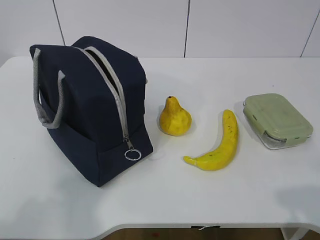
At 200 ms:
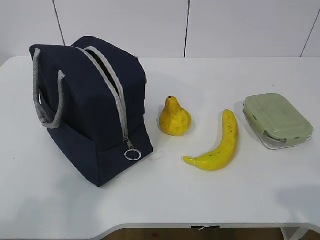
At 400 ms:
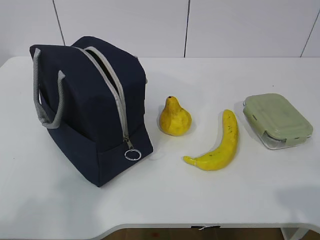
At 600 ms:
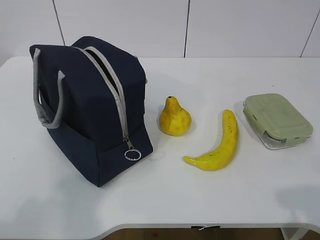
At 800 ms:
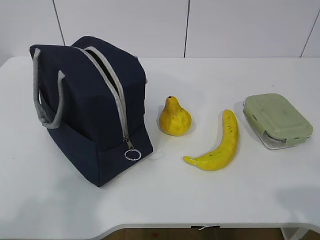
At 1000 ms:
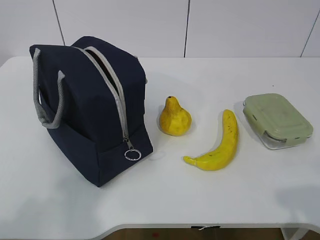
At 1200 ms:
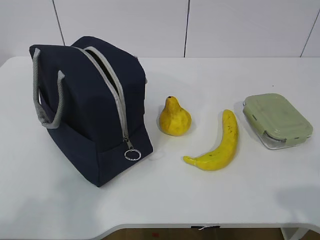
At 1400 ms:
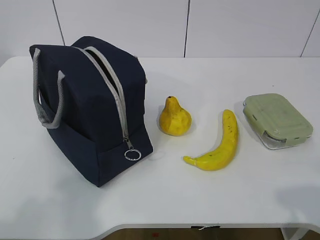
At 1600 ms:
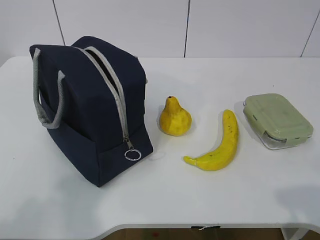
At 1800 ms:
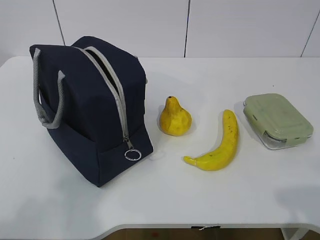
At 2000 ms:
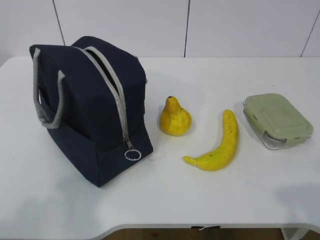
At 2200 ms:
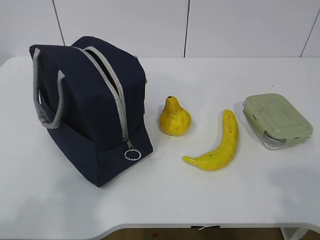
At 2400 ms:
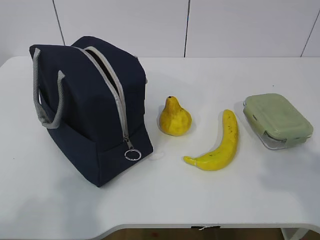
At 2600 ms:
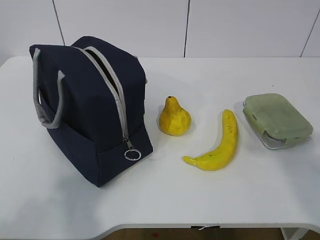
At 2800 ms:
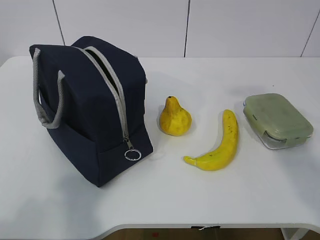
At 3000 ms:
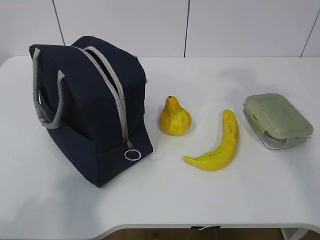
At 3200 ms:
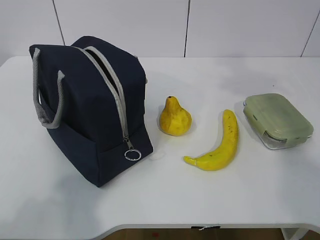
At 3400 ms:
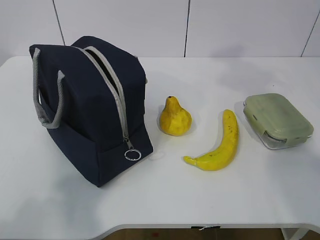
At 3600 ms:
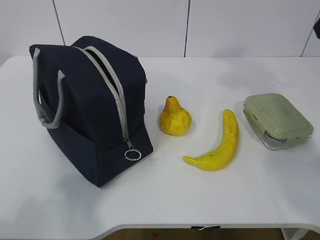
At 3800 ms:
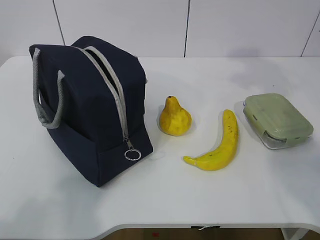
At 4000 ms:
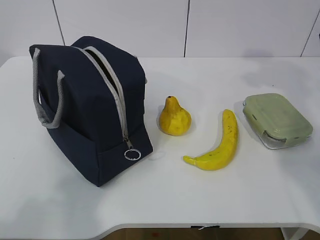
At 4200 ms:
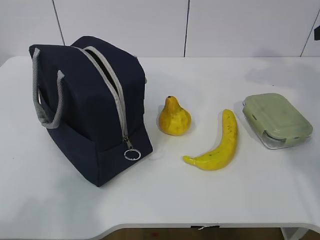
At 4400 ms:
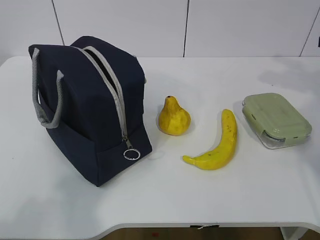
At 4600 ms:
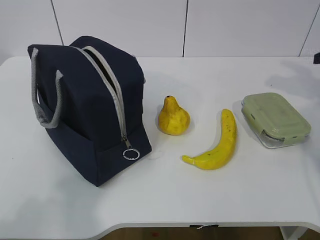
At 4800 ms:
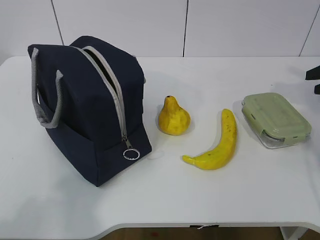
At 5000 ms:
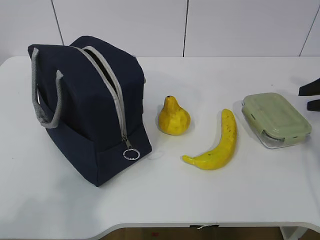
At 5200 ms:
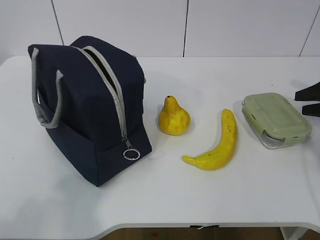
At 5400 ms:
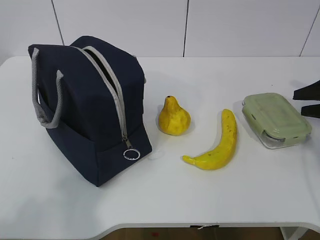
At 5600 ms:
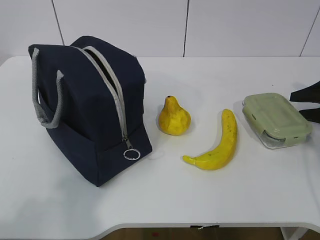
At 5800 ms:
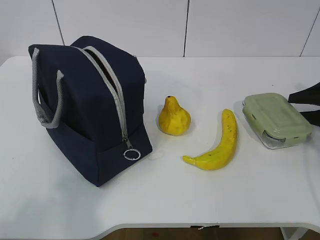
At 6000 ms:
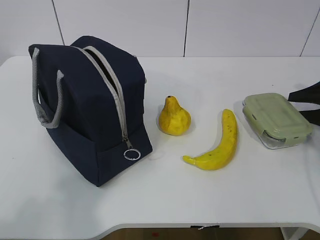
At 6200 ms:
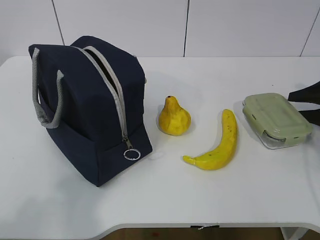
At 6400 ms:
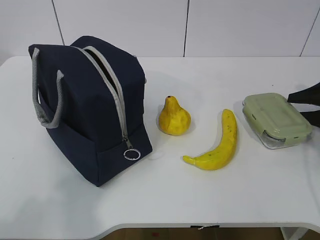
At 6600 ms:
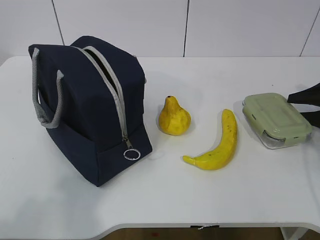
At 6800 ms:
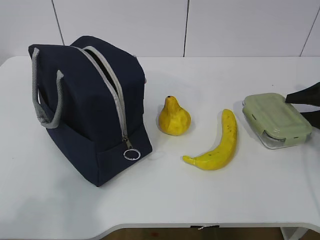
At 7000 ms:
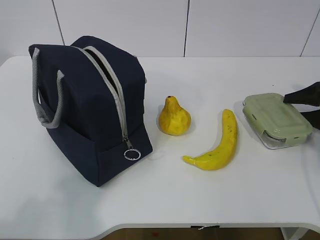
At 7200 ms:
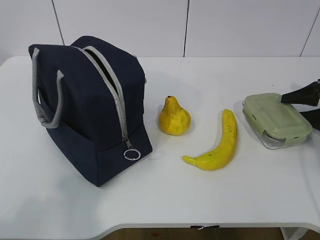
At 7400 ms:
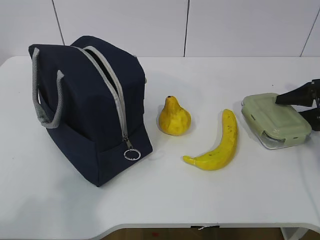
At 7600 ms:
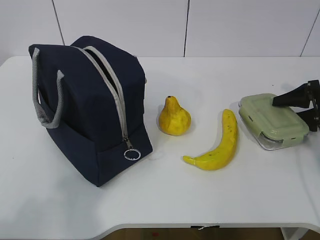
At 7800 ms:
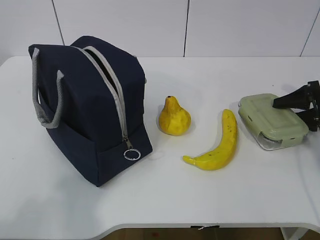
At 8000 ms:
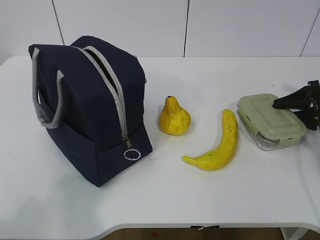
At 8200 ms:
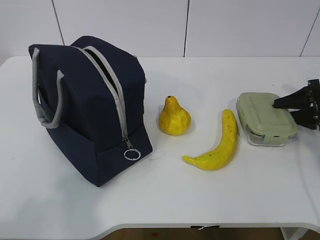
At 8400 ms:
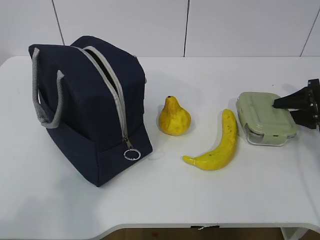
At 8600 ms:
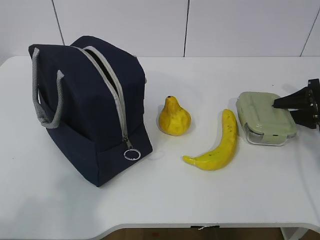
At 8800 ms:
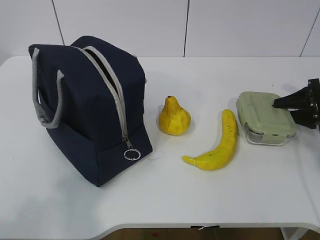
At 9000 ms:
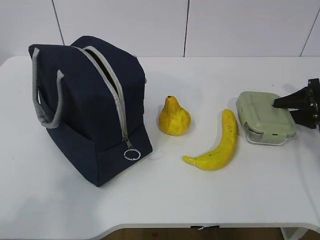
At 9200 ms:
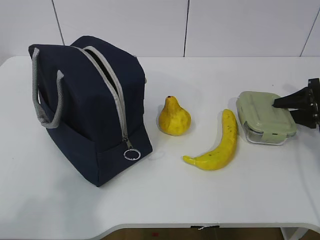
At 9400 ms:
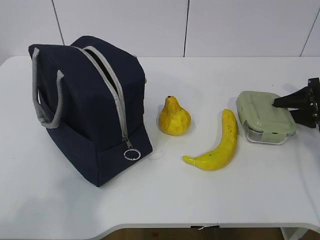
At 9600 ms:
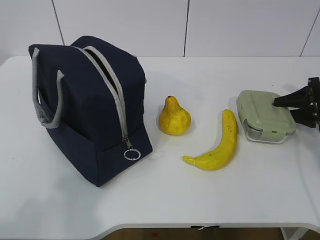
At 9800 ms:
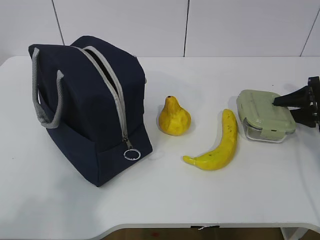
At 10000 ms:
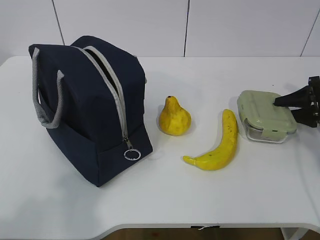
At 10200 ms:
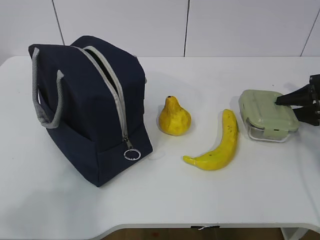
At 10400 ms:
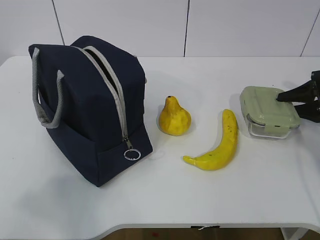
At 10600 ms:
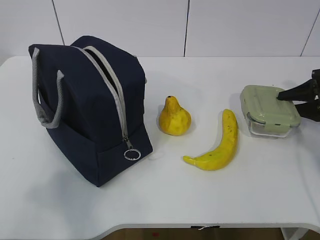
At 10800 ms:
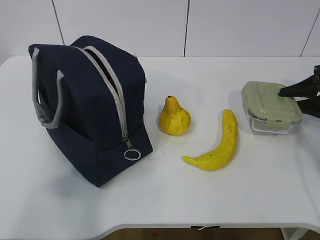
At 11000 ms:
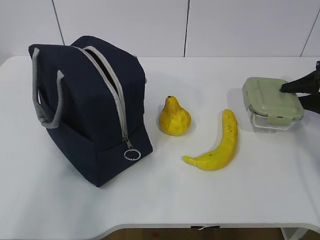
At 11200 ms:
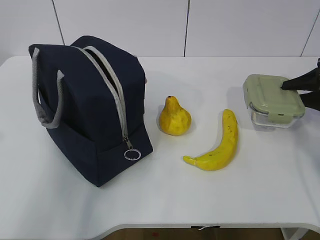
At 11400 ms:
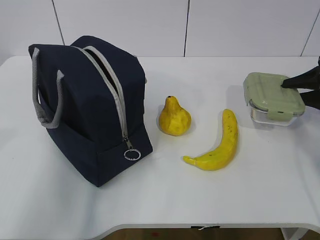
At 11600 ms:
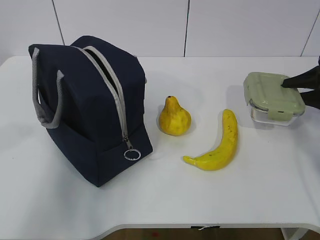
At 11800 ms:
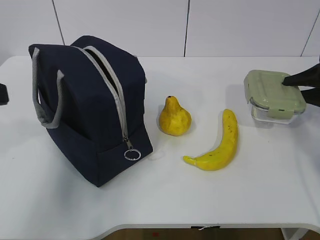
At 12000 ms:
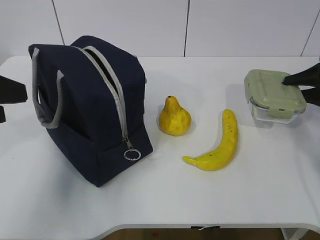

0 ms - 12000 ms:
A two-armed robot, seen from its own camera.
Step, 0 ms - 8000 ms: Grab the lunch box with your right hand.
1600 ms - 3000 ms: The right gripper travels forward and upward by some 25 cm.
3000 ms - 4400 ms: The right gripper moves forward, to the right and downward, approximately 25 cm.
4400 ms - 6000 ms: The right gripper travels downward by roughly 15 cm.
6000 ms - 7600 ms: The grippers move only a little.
7600 ms - 9000 ms: The right gripper closes its fingers.
9000 ms - 10400 ms: The grippers stay close to where they were, moving slightly.
10400 ms - 12000 ms: The left gripper shifts roughly 15 cm forward, and opens up.

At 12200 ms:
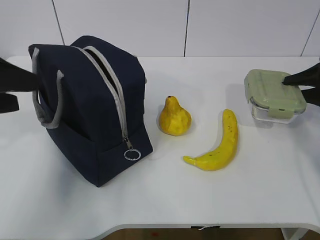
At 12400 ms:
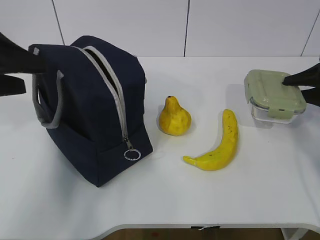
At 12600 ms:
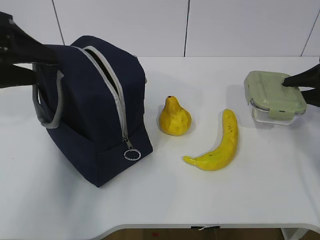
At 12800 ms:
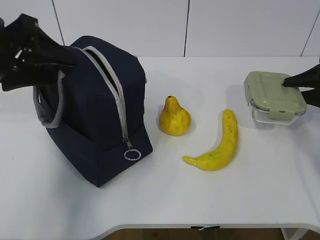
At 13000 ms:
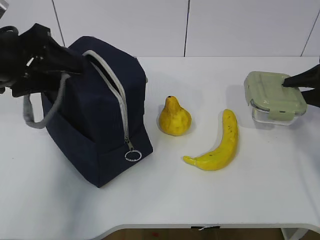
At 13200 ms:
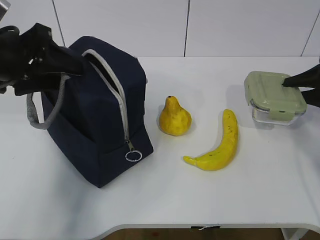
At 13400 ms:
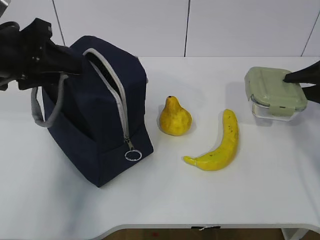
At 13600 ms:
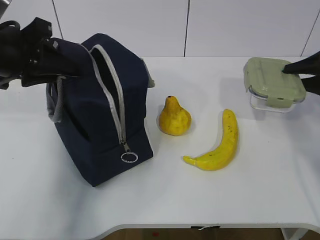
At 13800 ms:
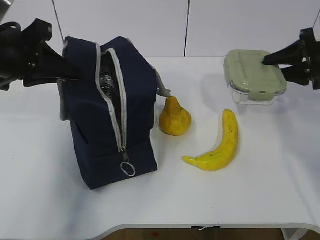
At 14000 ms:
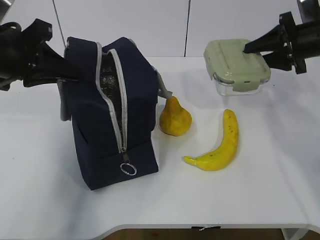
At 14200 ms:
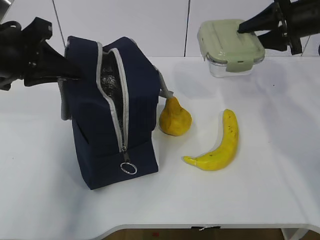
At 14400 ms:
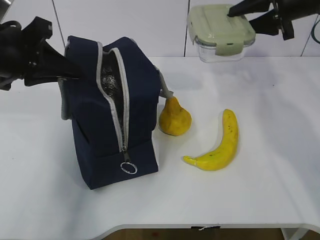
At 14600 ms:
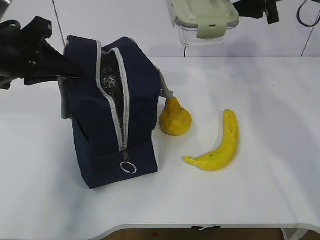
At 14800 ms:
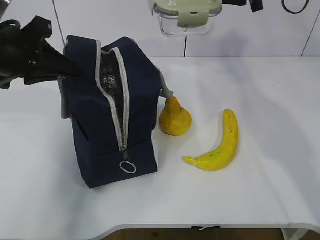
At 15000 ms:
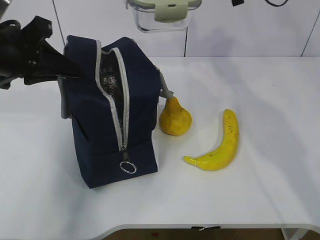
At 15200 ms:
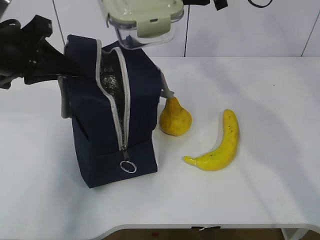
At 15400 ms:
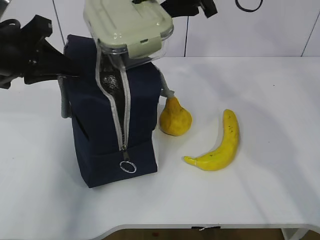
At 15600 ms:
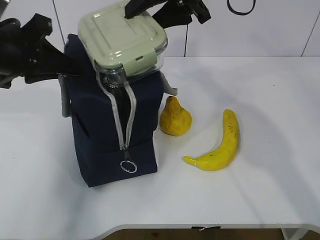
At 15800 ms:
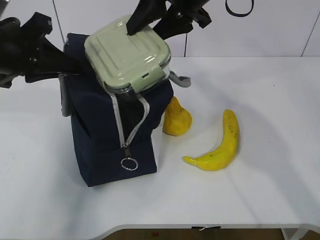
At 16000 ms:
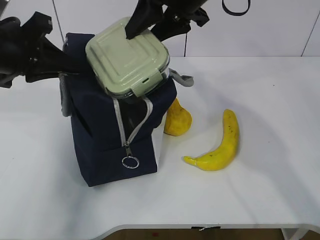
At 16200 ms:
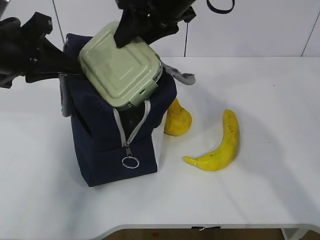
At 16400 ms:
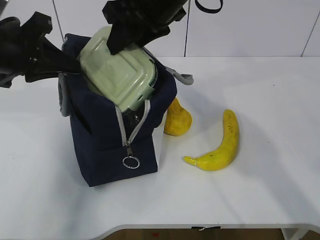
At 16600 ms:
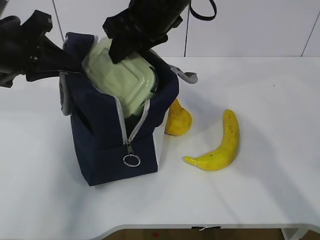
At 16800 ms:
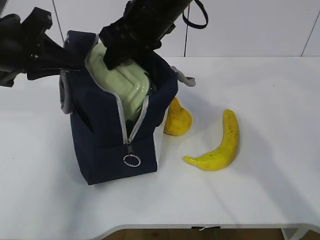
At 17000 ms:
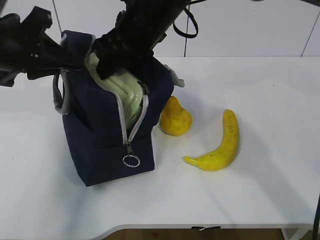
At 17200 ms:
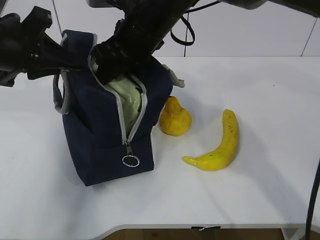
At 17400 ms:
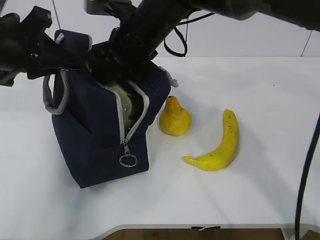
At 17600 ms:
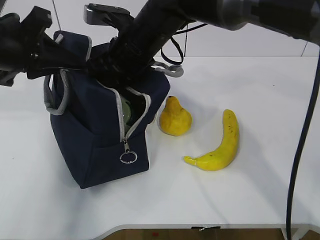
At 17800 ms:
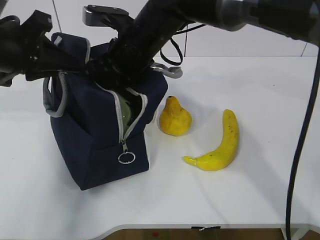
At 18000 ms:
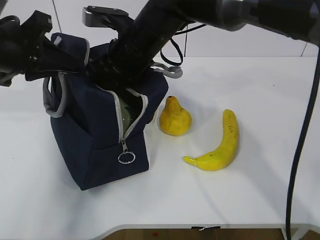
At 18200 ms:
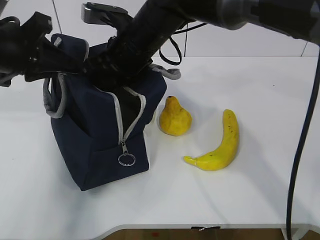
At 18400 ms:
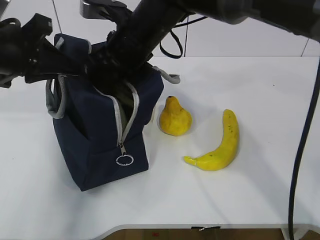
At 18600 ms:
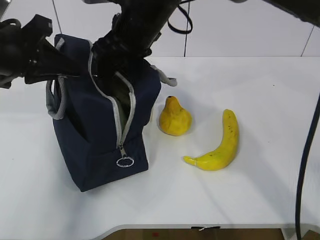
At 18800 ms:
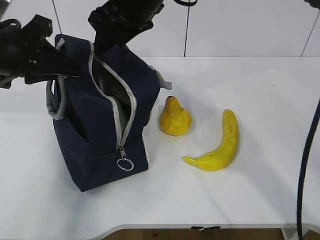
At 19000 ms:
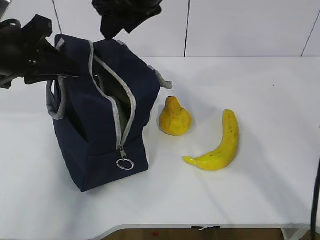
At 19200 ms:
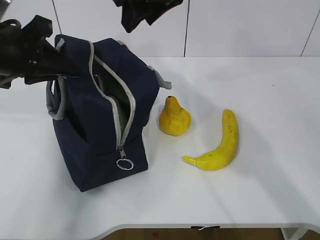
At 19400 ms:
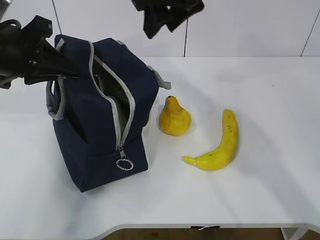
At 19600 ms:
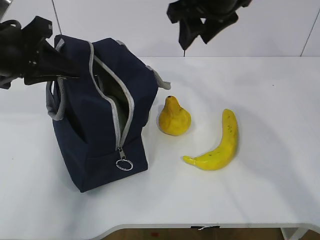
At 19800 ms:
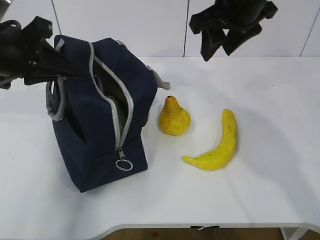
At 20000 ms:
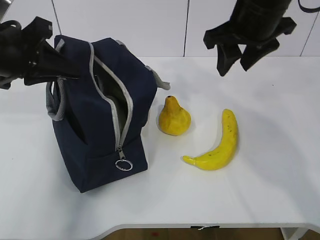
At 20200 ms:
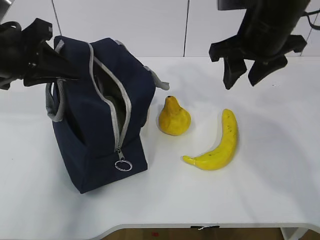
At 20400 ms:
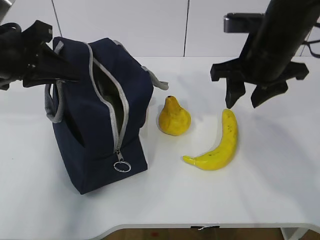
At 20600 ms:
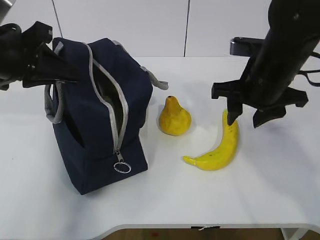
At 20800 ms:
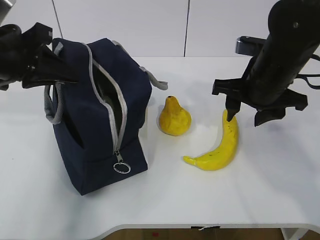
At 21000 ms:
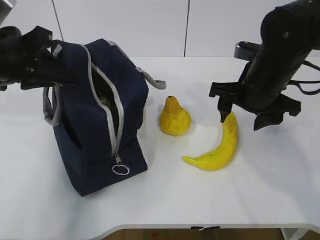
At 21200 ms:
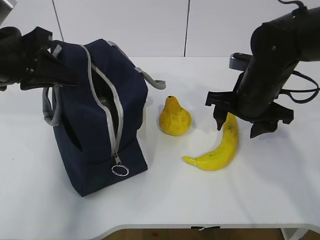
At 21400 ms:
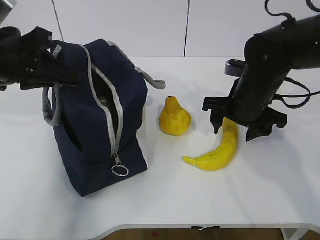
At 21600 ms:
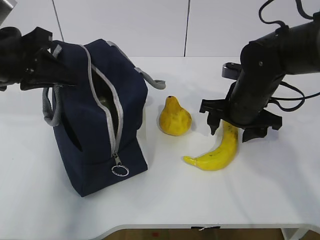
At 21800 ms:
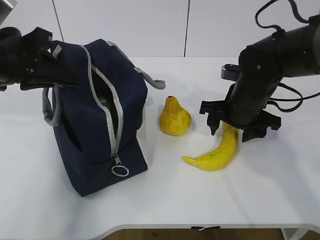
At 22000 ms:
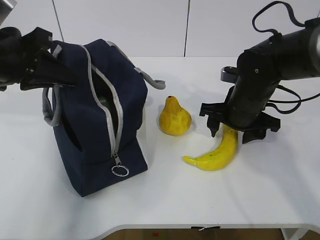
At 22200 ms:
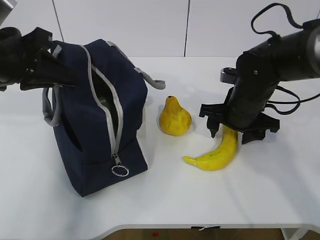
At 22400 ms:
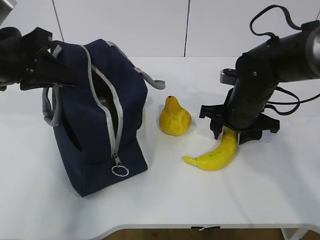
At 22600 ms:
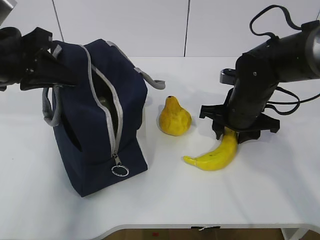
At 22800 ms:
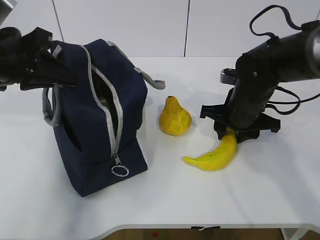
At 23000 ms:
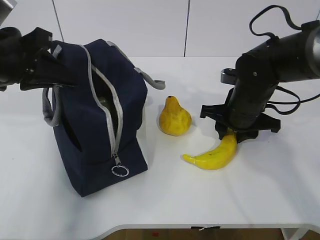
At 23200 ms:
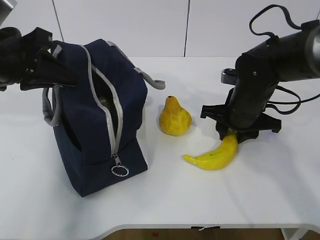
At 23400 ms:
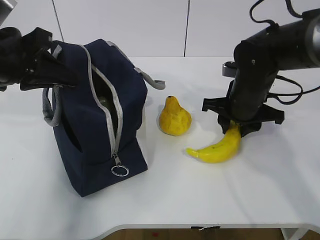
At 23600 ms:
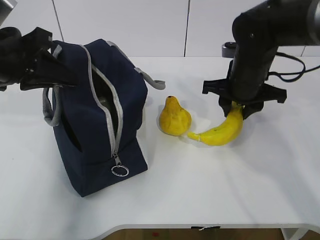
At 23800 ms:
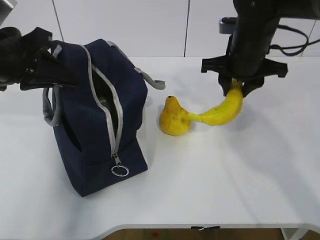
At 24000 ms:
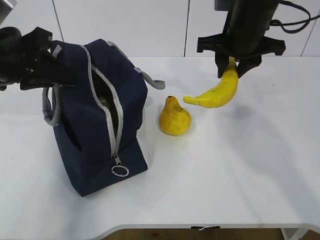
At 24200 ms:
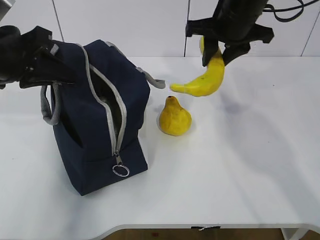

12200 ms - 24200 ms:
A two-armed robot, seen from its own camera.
Step, 13000 ms - 15000 ms: Place it into the bag with your right hand.
Step, 15200 ms - 19200 ms: Grab the banana with your right hand.
Step, 19400 ms - 22600 ms: Place it into the bag with your right hand.
12200 ms - 13800 ms: The right gripper moves approximately 5 cm; the left gripper goes roughly 10 cm forward, and closes up.
13800 ms - 15200 ms: The right gripper shifts approximately 25 cm to the left and upward.
15200 ms - 16600 ms: The right gripper heads to the left, covering approximately 10 cm.
16600 ms - 18200 ms: The right gripper travels downward by roughly 5 cm.
18200 ms - 19800 ms: The right gripper moves to the right and upward, roughly 15 cm.
19800 ms - 21200 ms: The right gripper is displaced downward by some 15 cm.
21200 ms - 22600 ms: The right gripper changes place by approximately 5 cm.
22600 ms - 24200 ms: The right gripper travels upward by approximately 15 cm.
